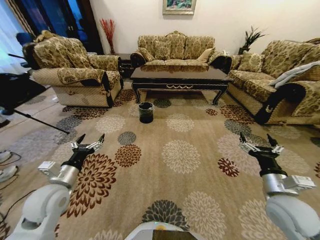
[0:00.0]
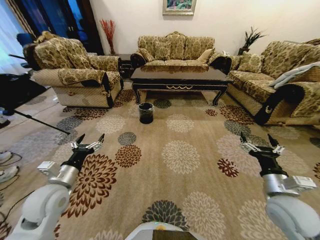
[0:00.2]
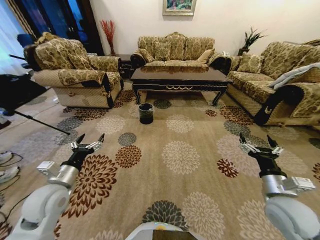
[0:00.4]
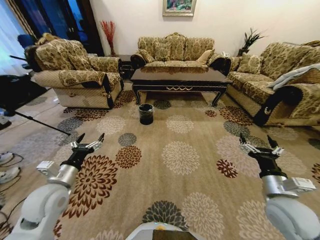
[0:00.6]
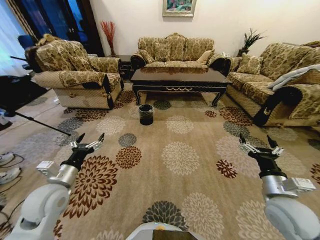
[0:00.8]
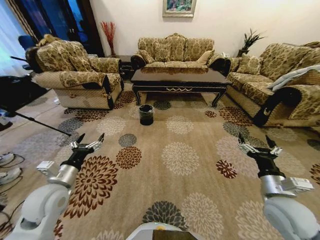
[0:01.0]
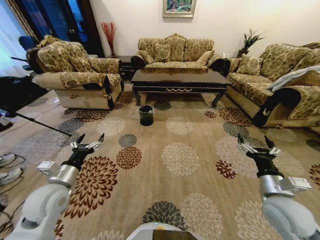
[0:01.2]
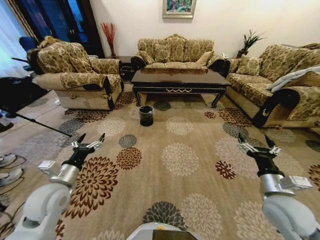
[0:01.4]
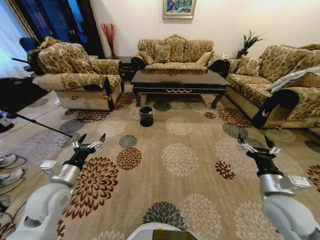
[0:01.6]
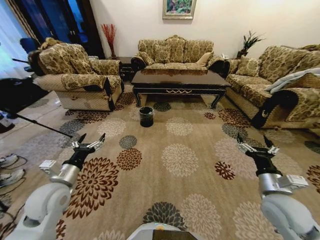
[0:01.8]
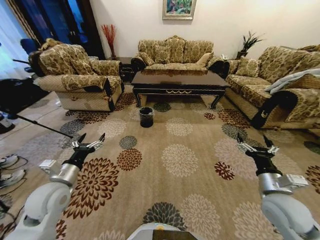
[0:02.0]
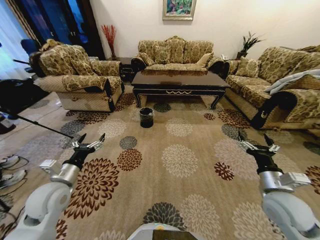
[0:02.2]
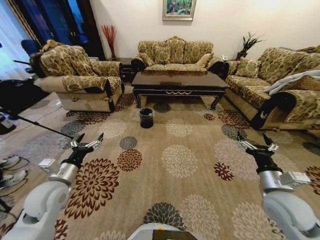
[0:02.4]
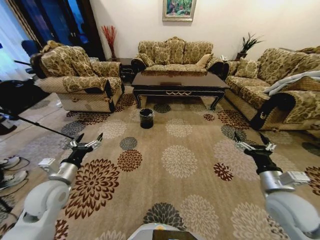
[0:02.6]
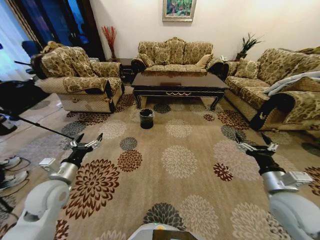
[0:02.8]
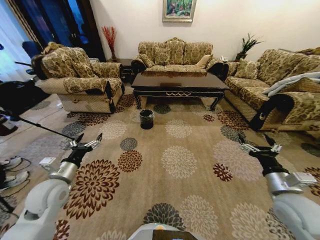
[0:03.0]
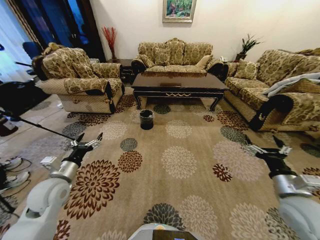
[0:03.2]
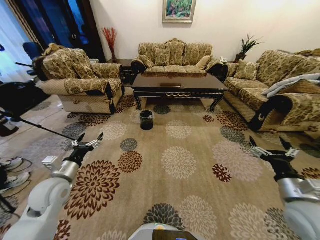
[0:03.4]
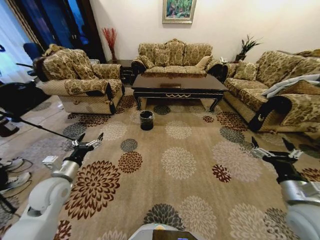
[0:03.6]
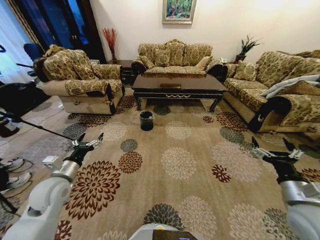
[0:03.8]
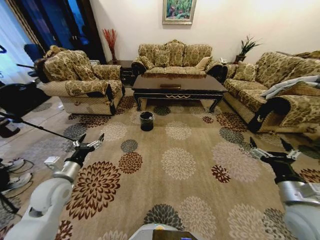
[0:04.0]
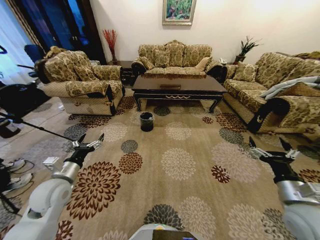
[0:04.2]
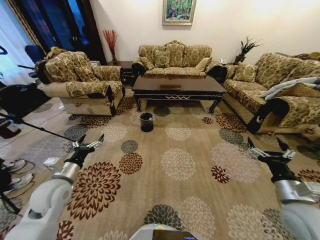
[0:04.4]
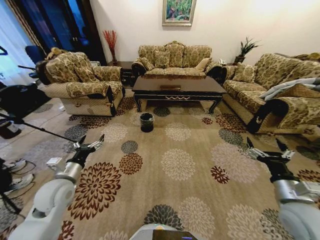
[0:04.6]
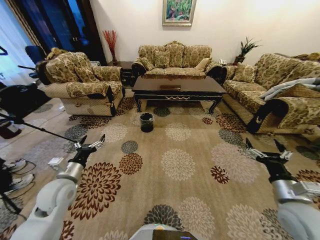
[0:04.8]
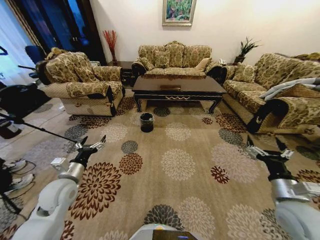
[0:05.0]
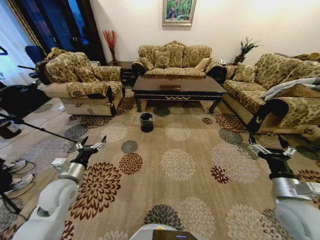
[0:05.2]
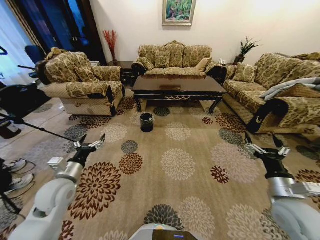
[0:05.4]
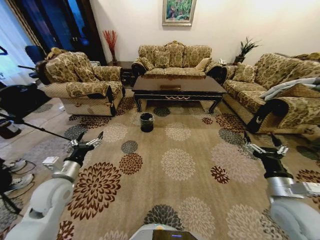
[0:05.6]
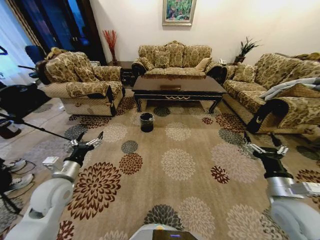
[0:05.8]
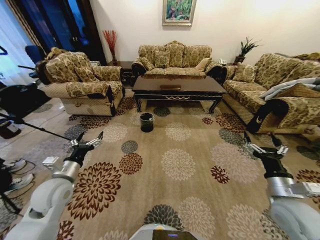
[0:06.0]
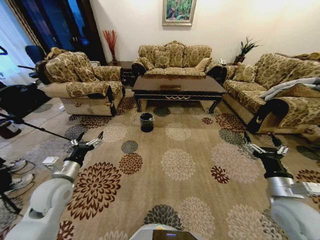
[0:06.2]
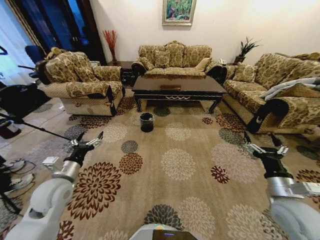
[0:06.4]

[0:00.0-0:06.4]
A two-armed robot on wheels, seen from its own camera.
Task of the whole recording: Move to the front of the table and pick up the trash from the floor, then place it into the trash bin.
0:04.8 to 0:06.4: The grippers move only a little.
